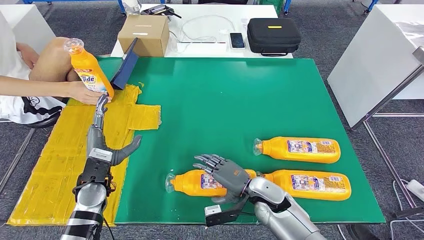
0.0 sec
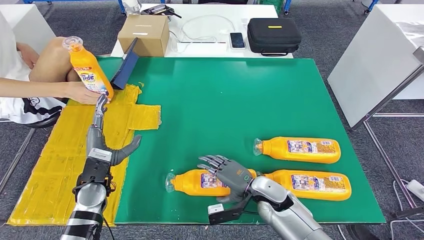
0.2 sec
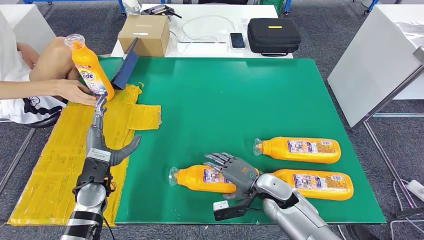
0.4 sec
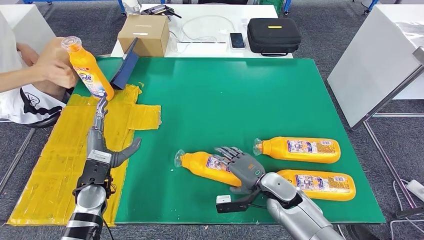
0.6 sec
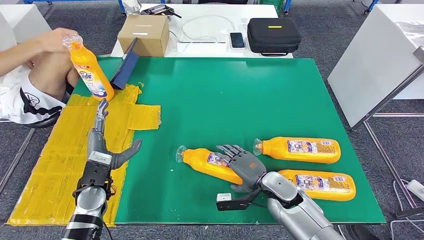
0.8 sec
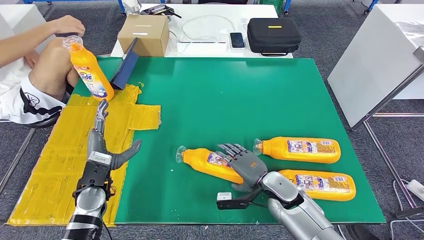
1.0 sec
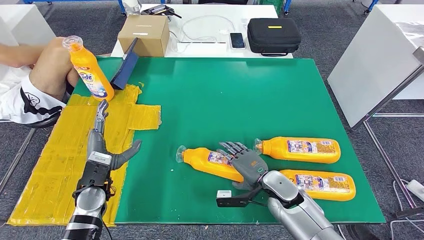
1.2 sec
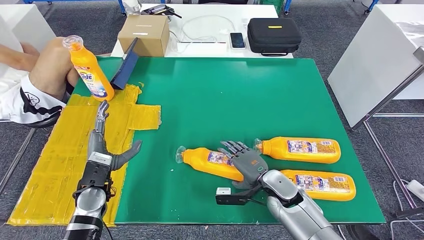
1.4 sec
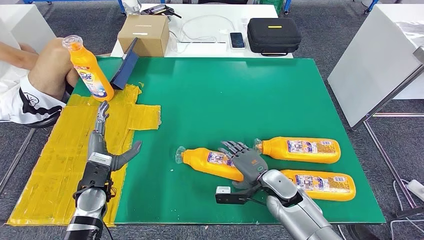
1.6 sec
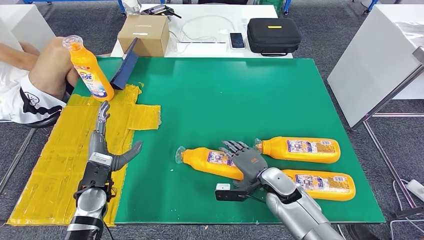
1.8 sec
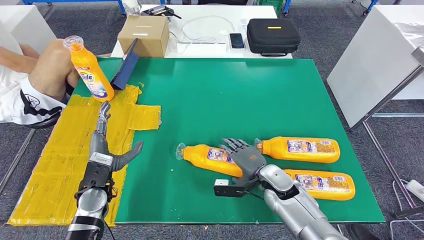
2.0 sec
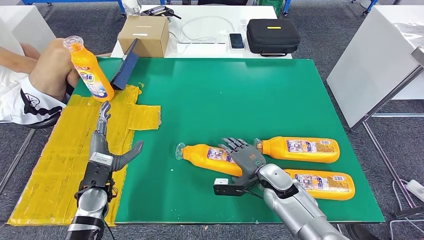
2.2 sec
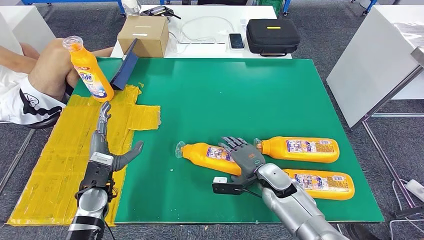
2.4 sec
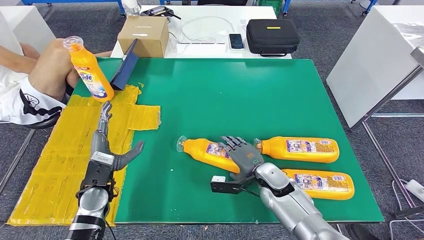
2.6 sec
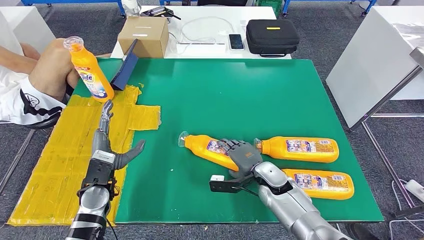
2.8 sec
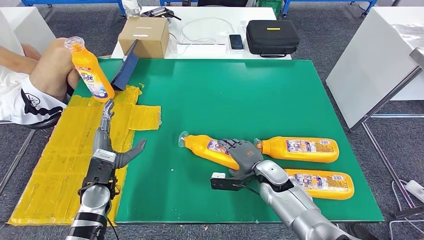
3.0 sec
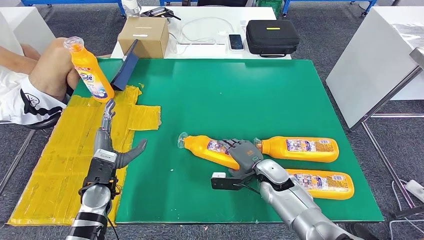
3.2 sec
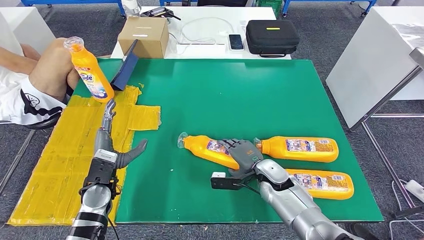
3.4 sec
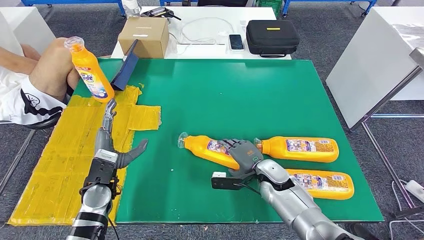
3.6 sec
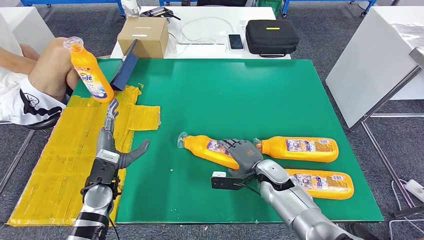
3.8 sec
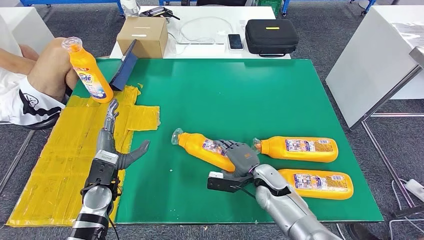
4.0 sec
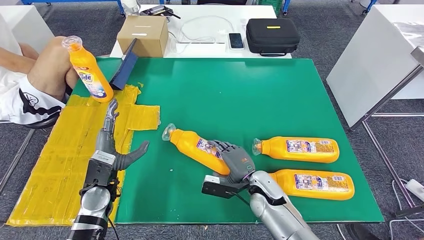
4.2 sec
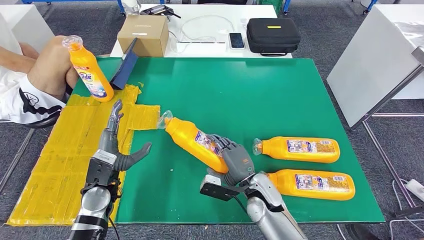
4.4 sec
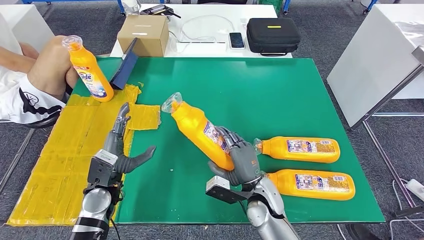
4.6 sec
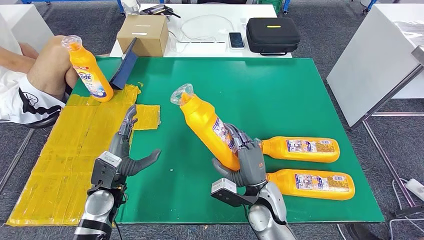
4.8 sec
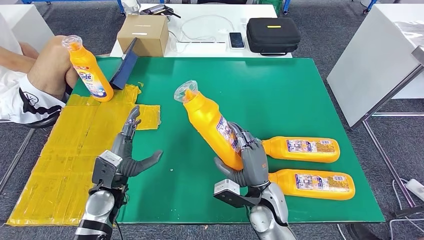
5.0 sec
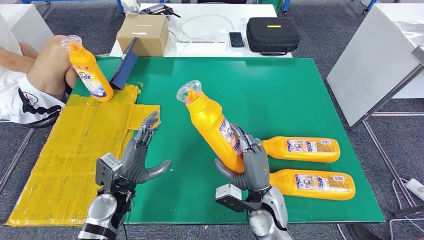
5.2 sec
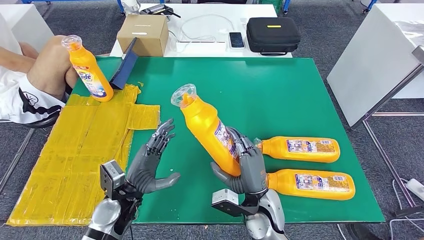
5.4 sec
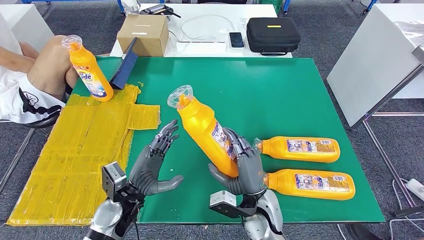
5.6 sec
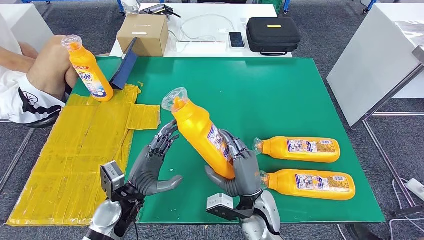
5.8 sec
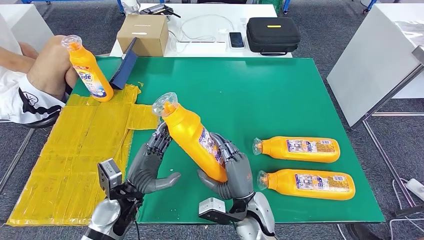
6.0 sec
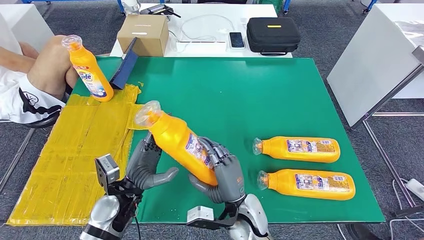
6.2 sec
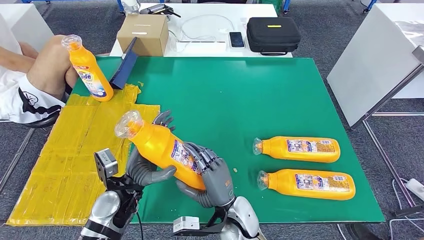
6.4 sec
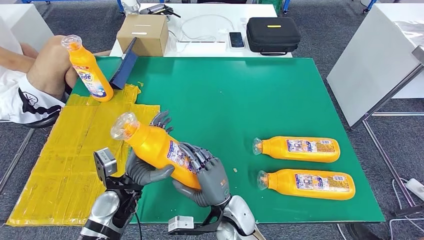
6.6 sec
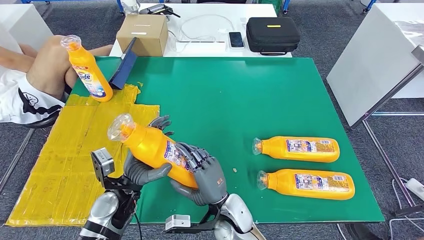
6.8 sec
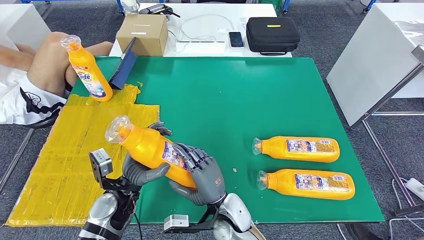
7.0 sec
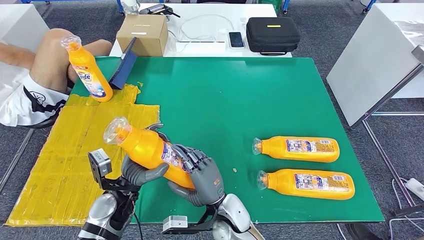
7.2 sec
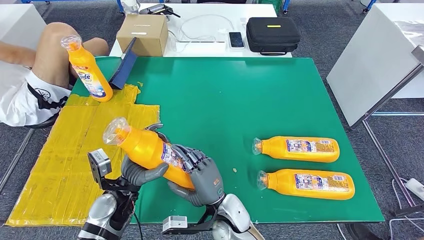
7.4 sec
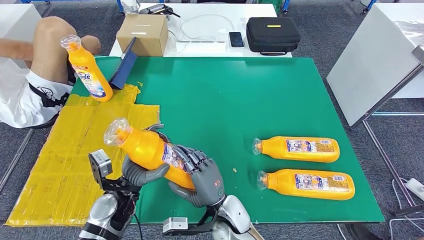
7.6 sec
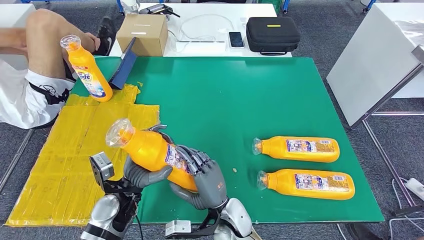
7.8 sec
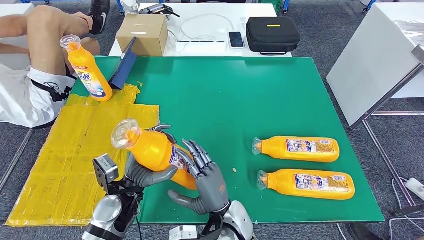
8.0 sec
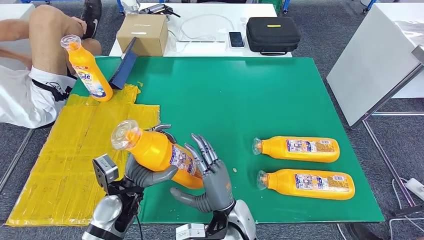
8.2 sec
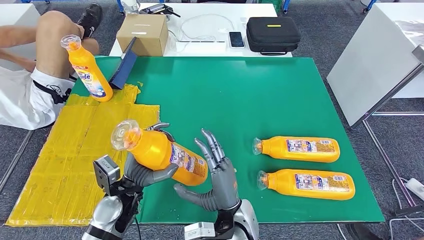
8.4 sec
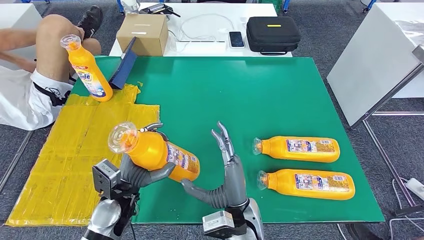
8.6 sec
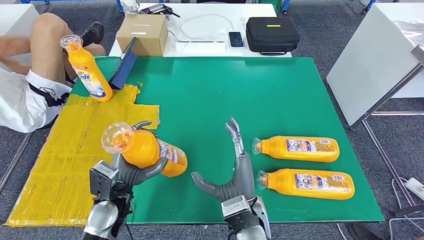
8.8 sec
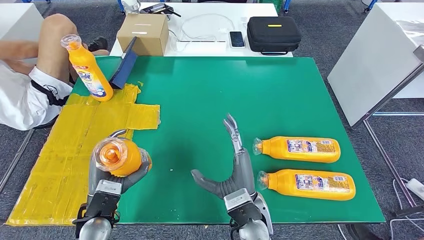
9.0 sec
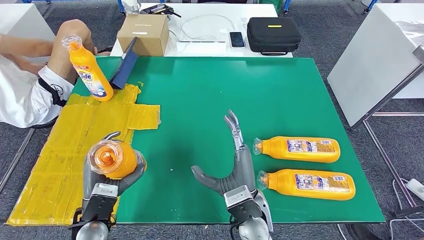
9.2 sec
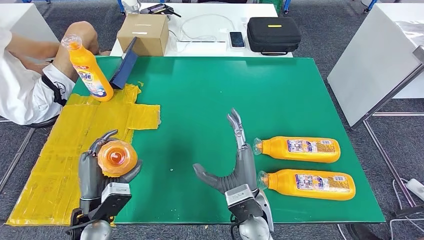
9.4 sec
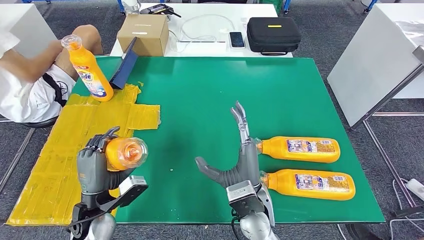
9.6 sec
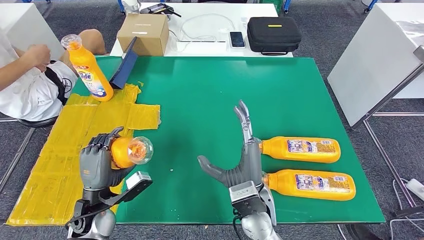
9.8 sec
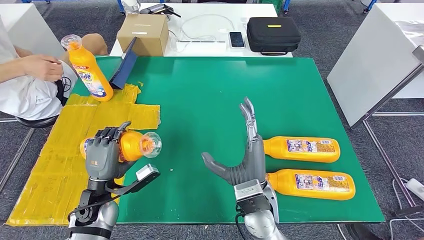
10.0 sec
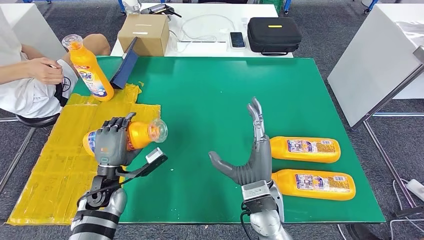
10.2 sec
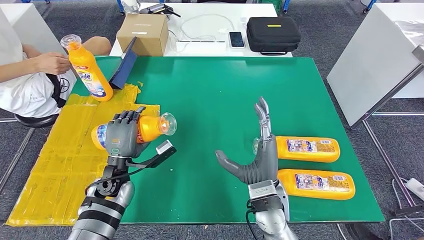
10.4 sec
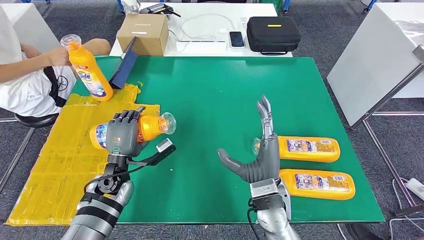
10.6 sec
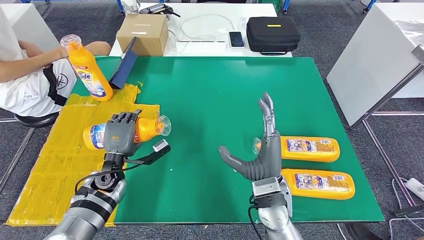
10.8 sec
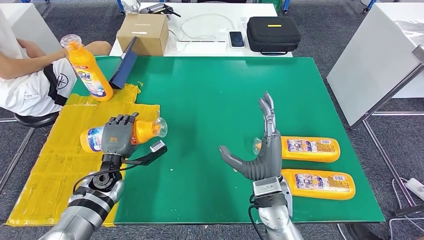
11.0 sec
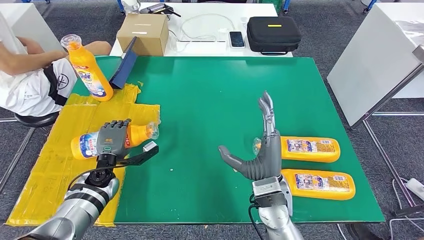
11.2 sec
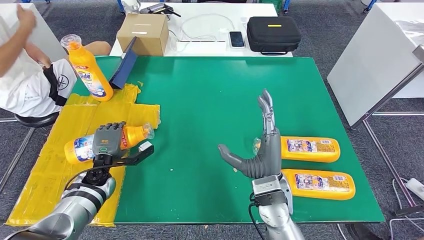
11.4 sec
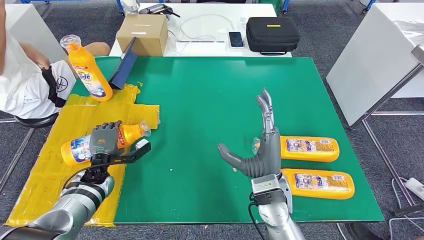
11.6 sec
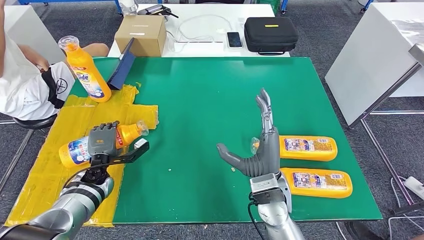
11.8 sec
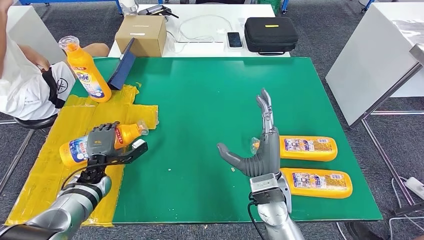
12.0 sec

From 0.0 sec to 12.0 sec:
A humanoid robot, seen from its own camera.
Step, from 0.0 sec to 6.6 sec: Pick up the fast-moving consumer goods bottle from the table.
From 1.6 sec to 3.0 sec: The hands stay close to where they were, moving slightly.
From 3.0 sec to 4.4 sec: The right hand goes roughly 5 cm backward.
From 4.4 sec to 6.0 sec: The right hand goes some 5 cm backward. Meanwhile the left hand travels to the right by about 5 cm.
From 6.0 sec to 7.6 sec: The right hand is displaced to the left by approximately 5 cm.
From 7.6 sec to 9.0 sec: The right hand shifts roughly 5 cm upward; the left hand ends up some 5 cm from where it was.
From 9.0 sec to 10.4 sec: The right hand moves about 5 cm. The left hand moves forward, some 10 cm.

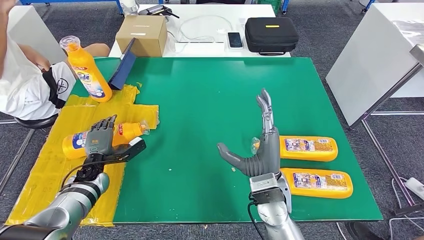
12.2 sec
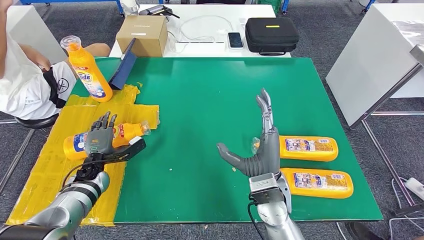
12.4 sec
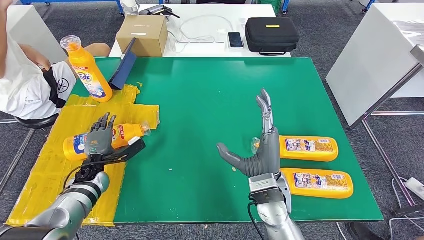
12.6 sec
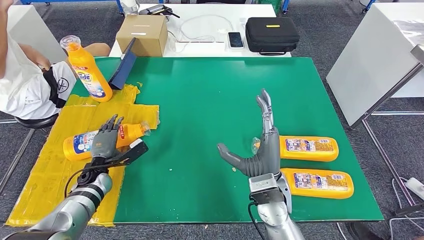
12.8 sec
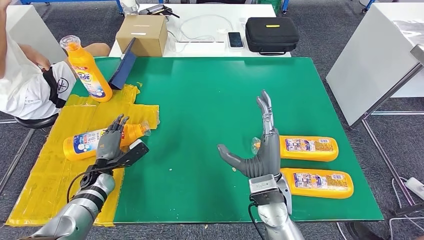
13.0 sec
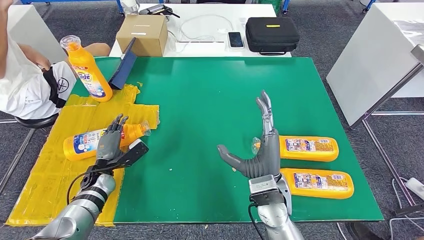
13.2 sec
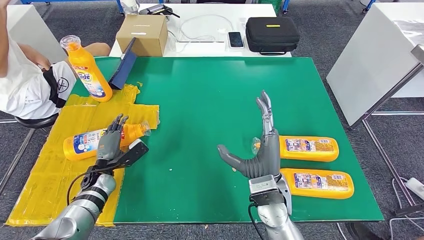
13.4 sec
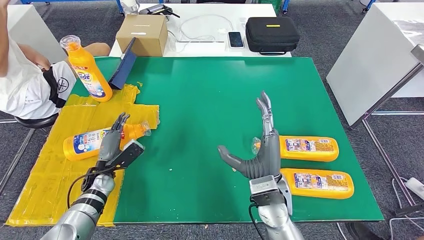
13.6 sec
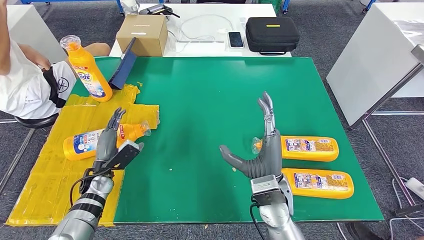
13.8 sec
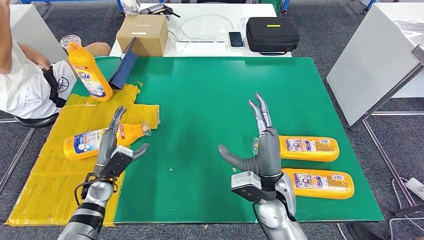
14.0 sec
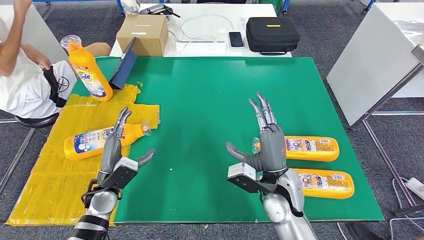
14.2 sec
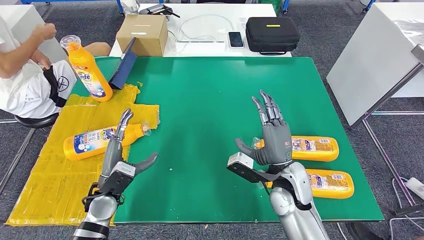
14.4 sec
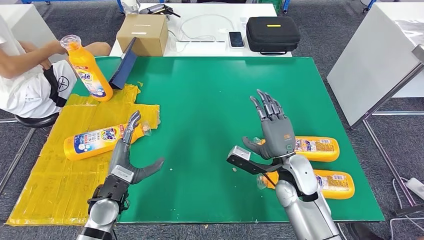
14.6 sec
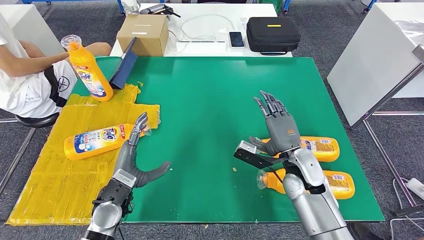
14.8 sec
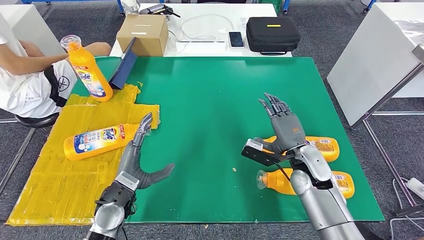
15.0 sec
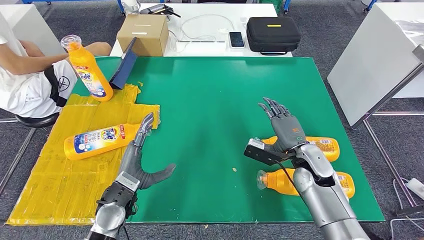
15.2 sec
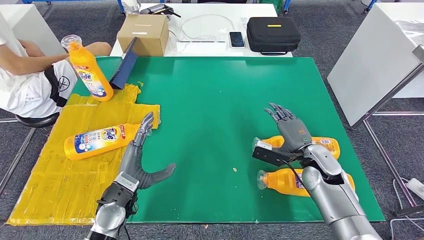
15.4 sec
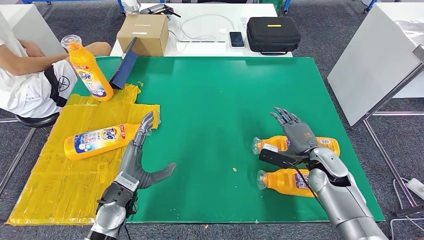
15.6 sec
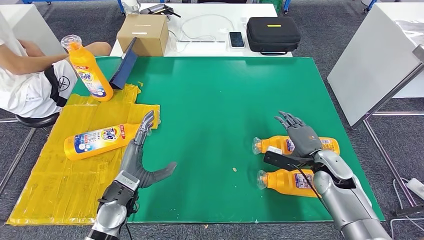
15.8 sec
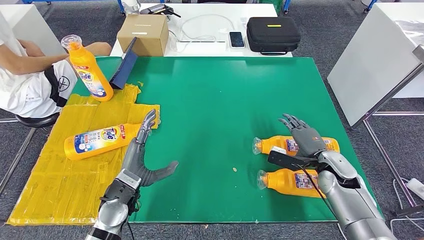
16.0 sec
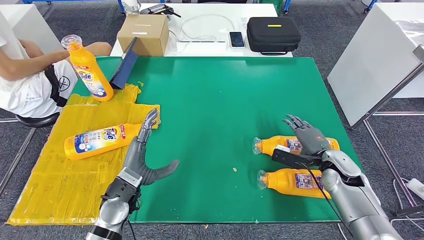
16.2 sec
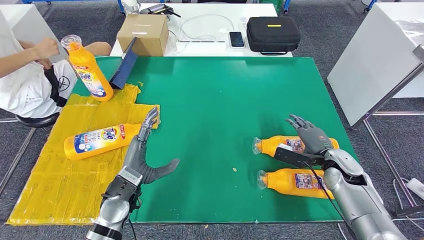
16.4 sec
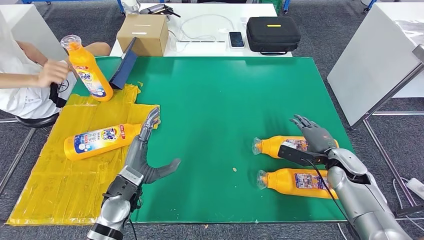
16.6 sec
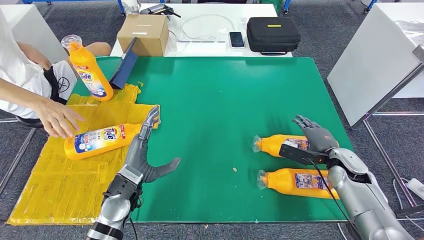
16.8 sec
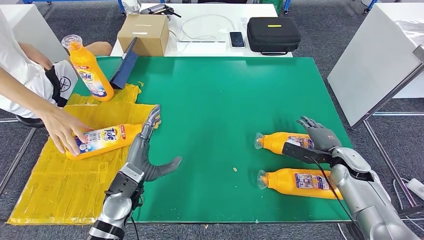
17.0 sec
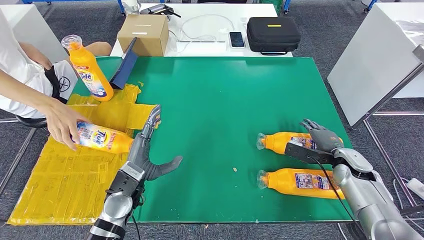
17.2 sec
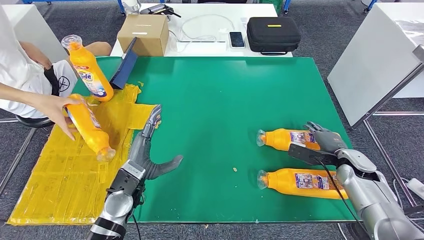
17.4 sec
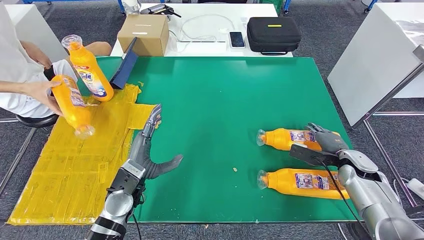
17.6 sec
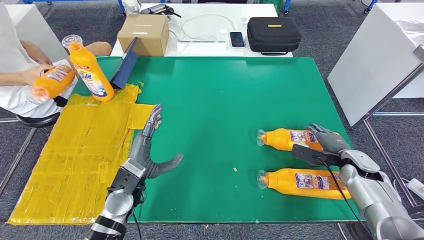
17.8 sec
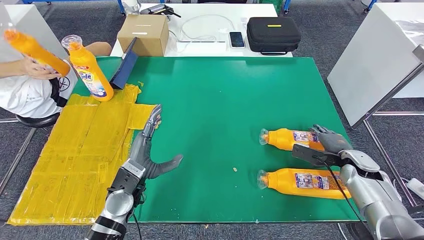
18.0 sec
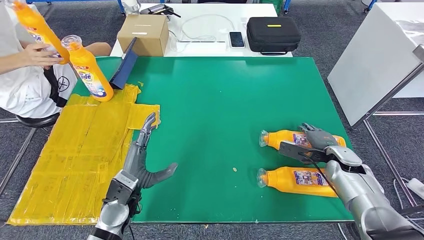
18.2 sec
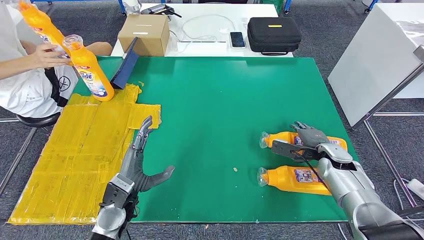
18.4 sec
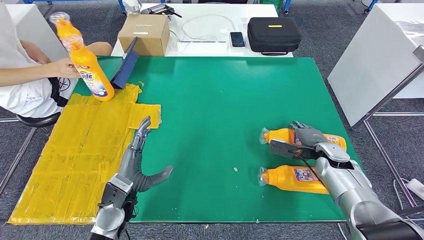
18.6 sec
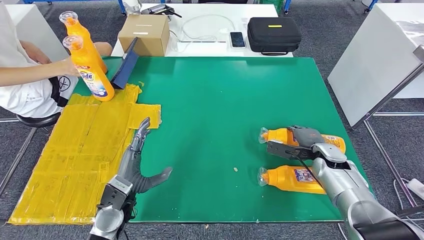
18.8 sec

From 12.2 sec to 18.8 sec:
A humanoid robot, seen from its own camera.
Step, from 12.2 sec to 14.4 sec: Flip the fast-moving consumer goods bottle to the front side.
From 13.8 sec to 15.4 sec: The right hand is displaced to the right and forward by roughly 20 cm. Meanwhile the left hand travels to the right, backward and upward by approximately 15 cm.
From 15.4 sec to 17.2 sec: The right hand shifts approximately 10 cm to the right.
From 17.2 sec to 18.8 sec: The right hand moves about 5 cm.
